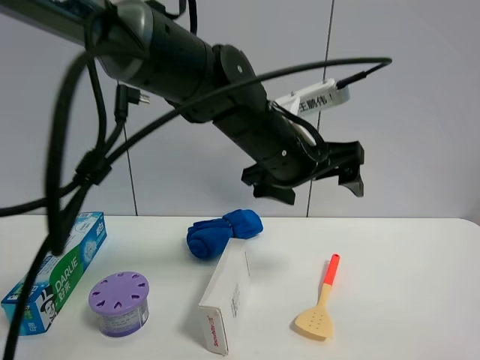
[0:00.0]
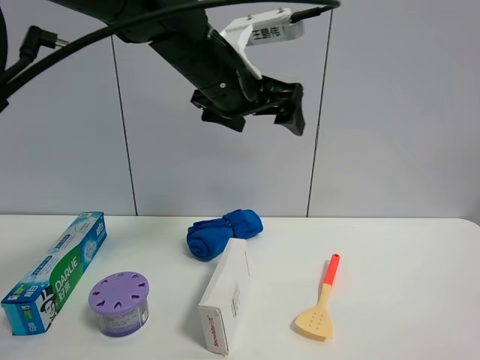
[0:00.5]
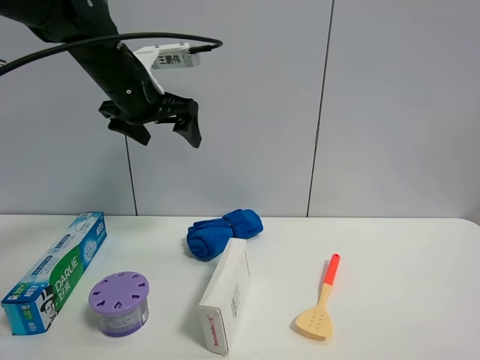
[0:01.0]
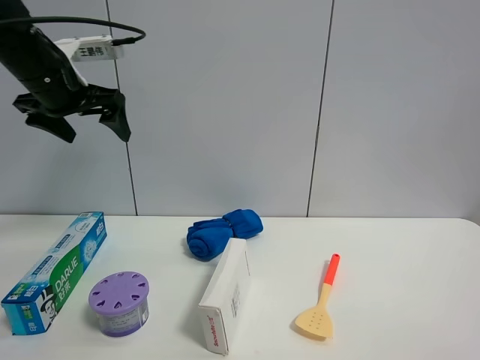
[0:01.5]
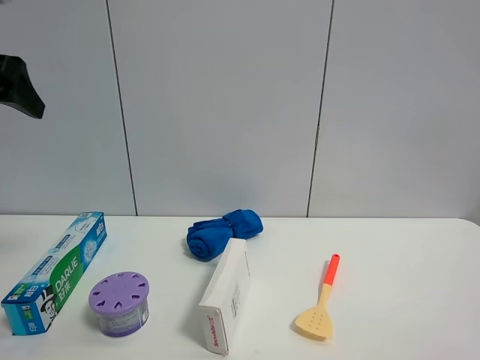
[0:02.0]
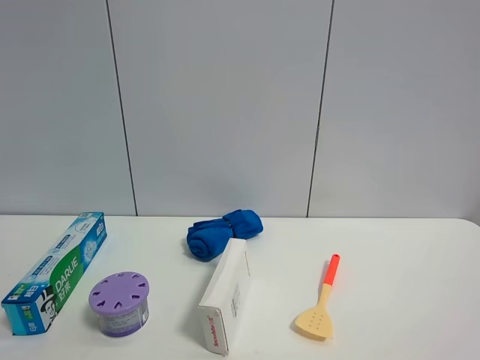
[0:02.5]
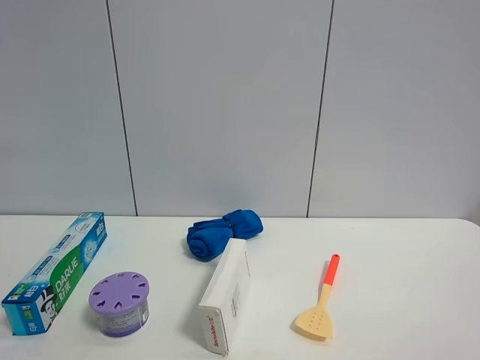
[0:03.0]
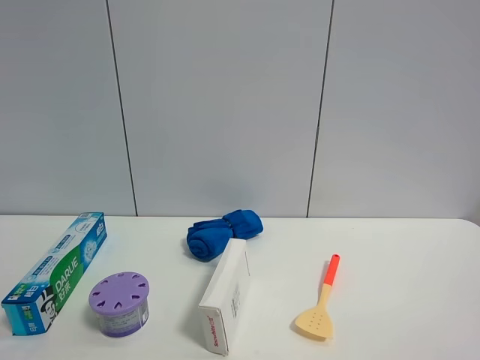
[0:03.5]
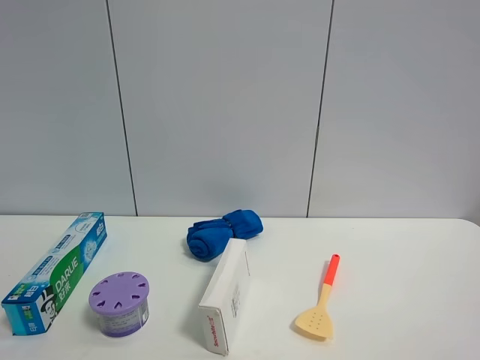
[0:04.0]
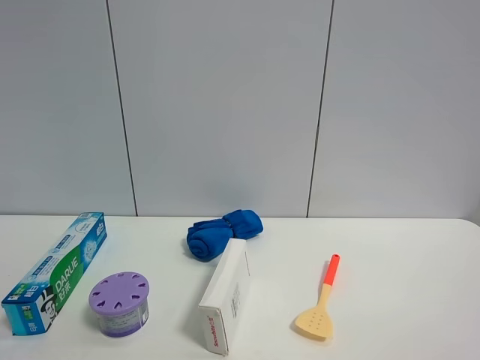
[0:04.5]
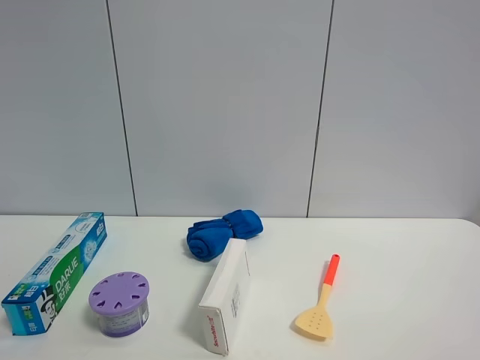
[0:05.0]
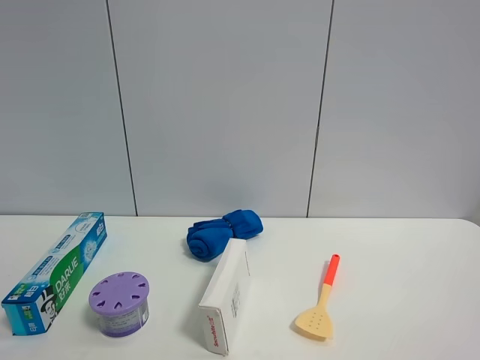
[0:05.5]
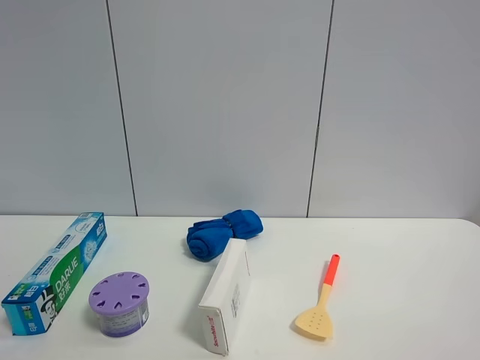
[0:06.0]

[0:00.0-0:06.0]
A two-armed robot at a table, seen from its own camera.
Task of the whole recording: the gripper move the object.
0:00.0 to 0:02.0: The left gripper is displaced to the left by roughly 35 cm.
0:02.0 to 0:04.0: The left gripper heads backward, covering about 30 cm.

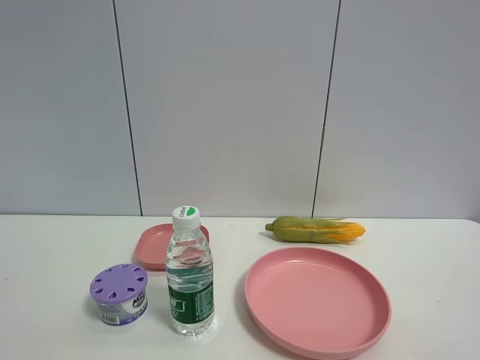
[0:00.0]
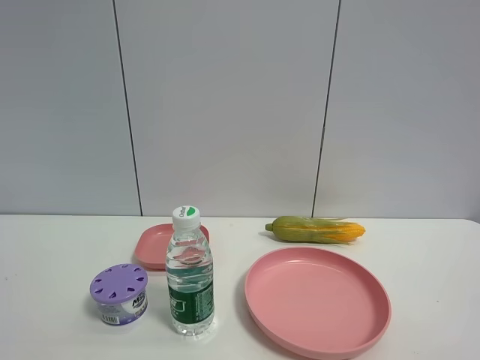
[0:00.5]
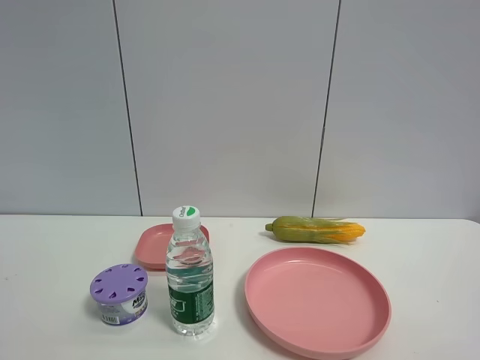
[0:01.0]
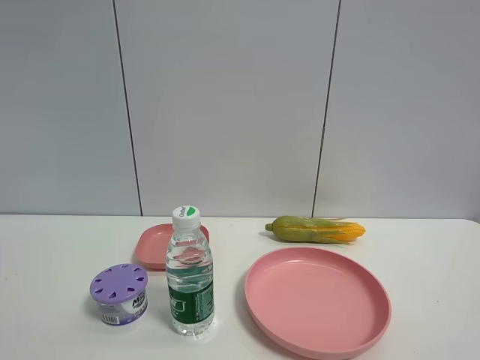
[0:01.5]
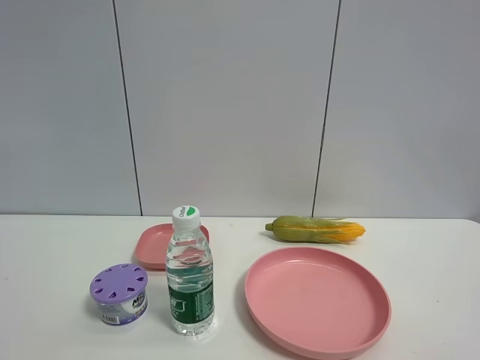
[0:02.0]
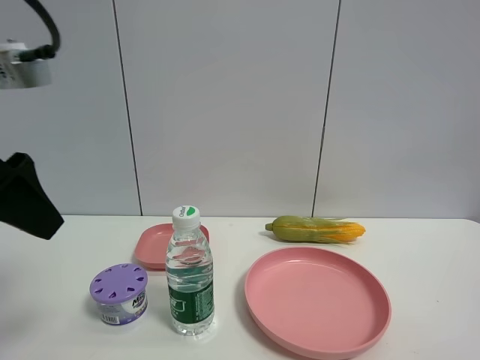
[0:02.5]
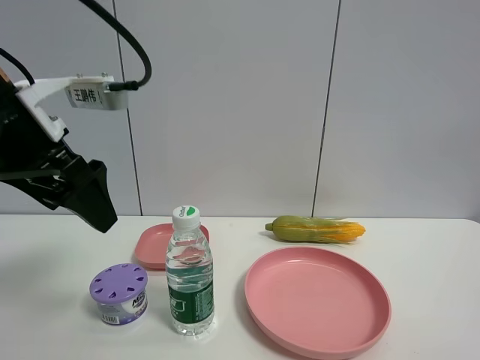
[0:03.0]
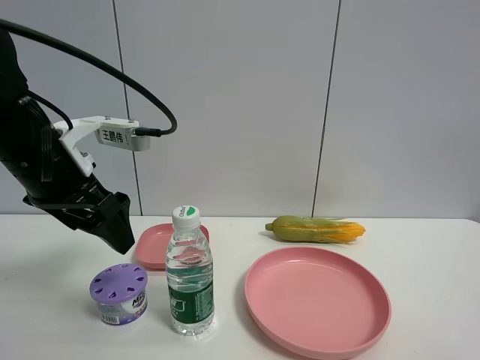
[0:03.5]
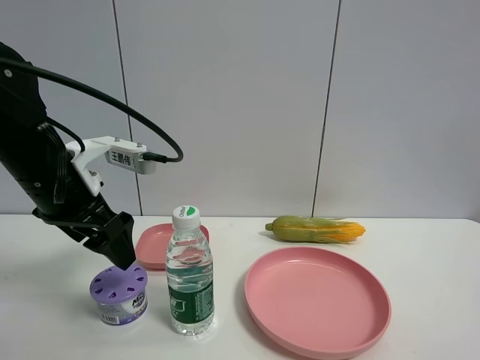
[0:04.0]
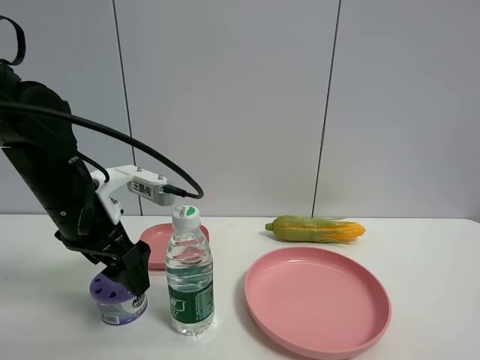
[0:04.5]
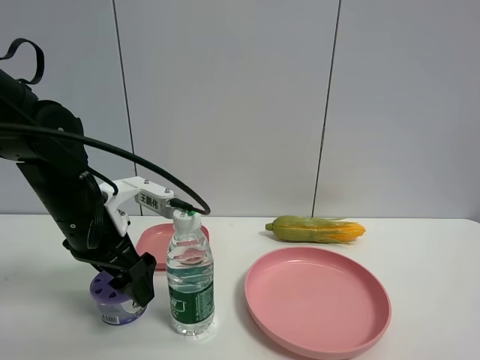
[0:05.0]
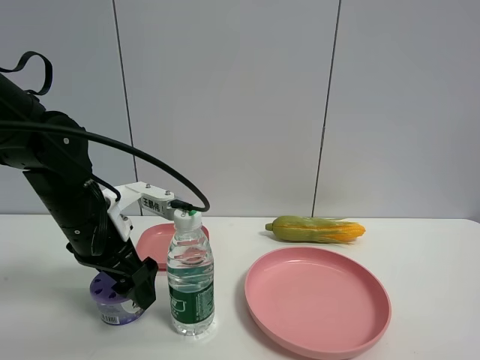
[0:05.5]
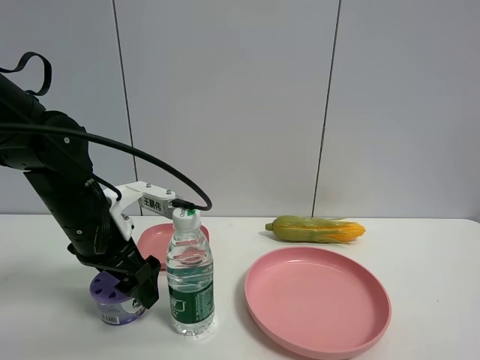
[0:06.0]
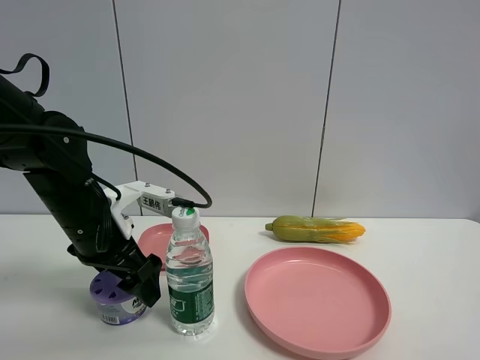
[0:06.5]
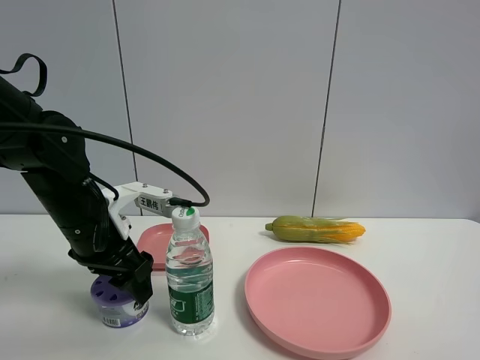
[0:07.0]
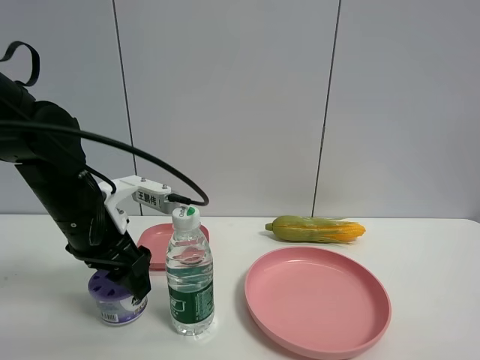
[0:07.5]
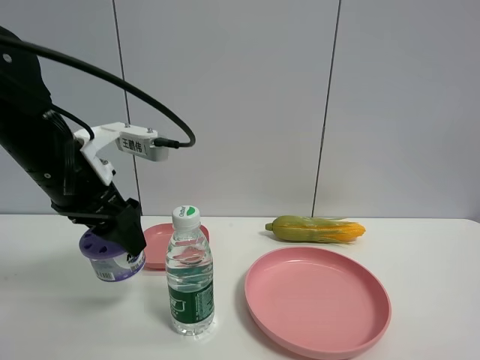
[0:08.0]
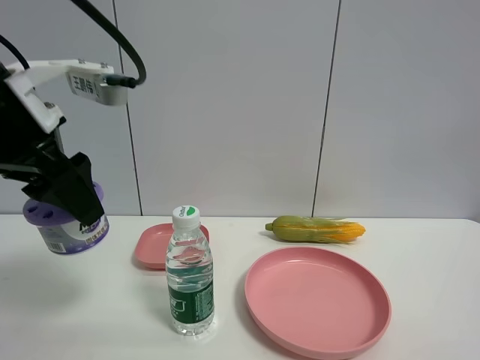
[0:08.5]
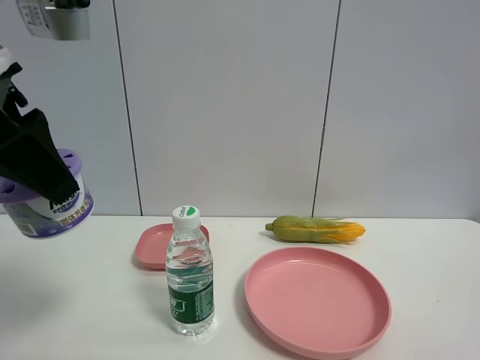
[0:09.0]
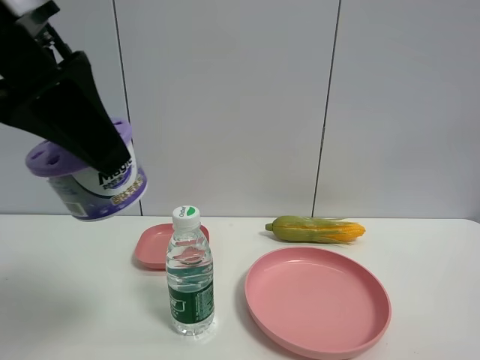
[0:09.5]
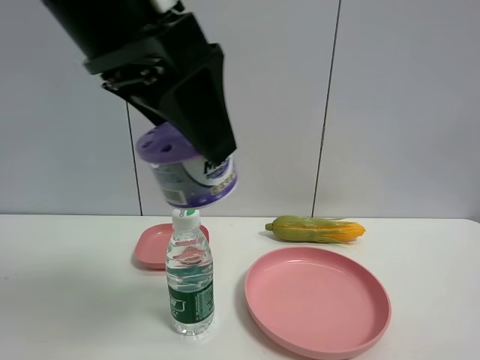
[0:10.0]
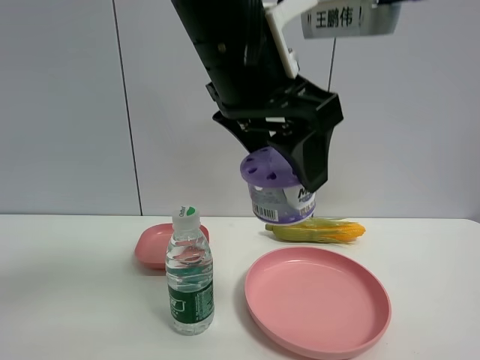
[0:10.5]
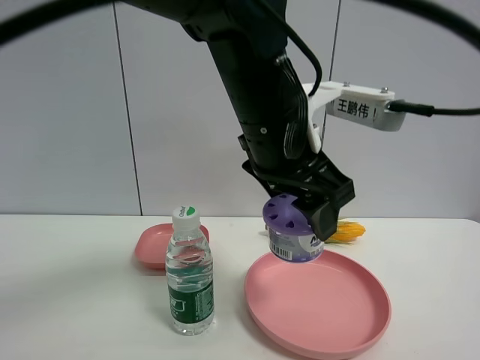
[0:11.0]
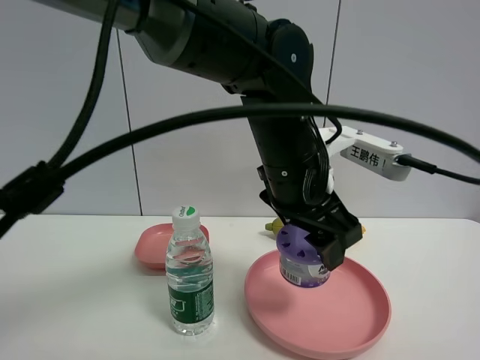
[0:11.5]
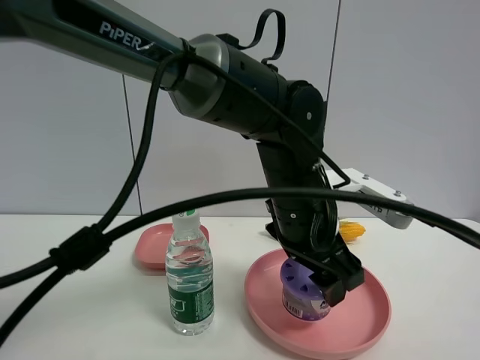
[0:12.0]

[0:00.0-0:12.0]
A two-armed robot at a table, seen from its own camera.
Task of the whole recording: the gripper move the object.
Step, 0:00.0 to 0:07.0: Grasp the Incense box with the left gripper.
0:02.0 to 0:04.0: The left gripper moves forward, downward and to the right, approximately 25 cm.
0:04.0 to 0:06.0: The left gripper heads downward, covering approximately 5 cm.
0:06.0 to 0:08.0: The left gripper heads upward, covering roughly 10 cm, and closes its fingers.
0:08.0 to 0:10.0: The left gripper moves upward, to the right and backward, roughly 20 cm.
0:10.0 to 0:12.0: The left gripper goes roughly 25 cm downward, to the right and forward.

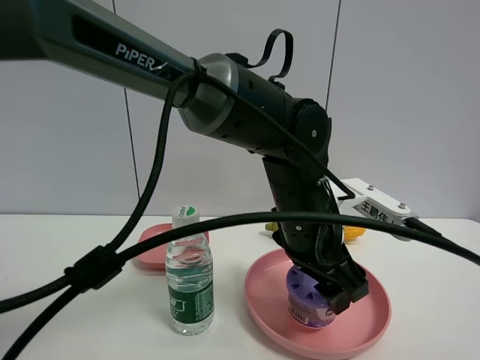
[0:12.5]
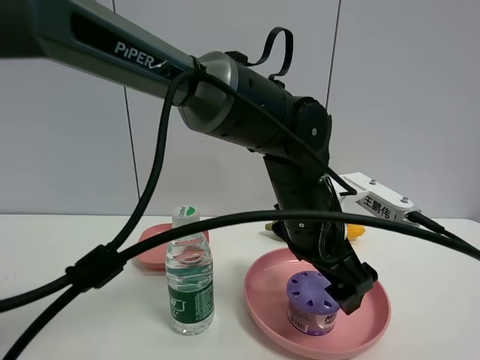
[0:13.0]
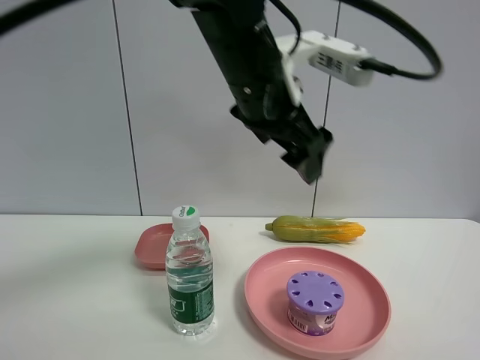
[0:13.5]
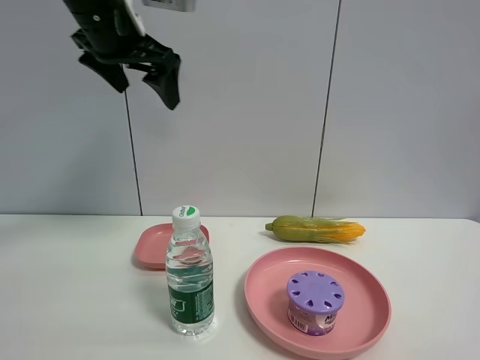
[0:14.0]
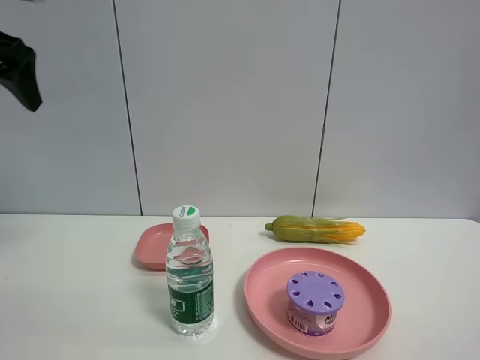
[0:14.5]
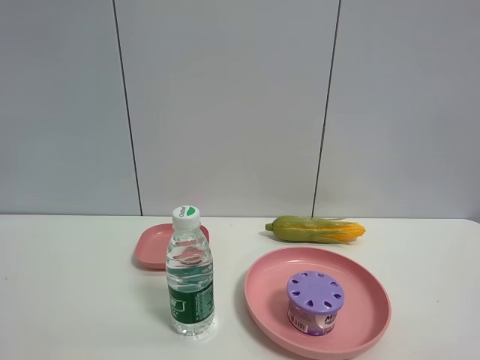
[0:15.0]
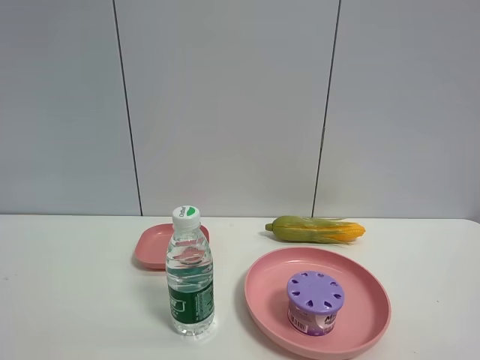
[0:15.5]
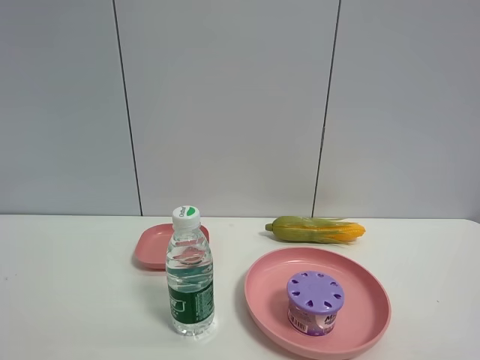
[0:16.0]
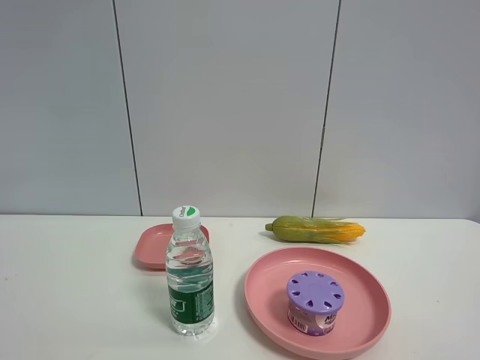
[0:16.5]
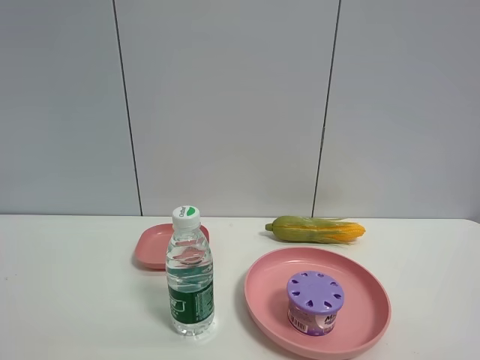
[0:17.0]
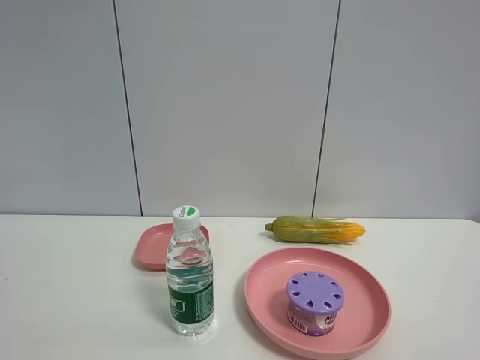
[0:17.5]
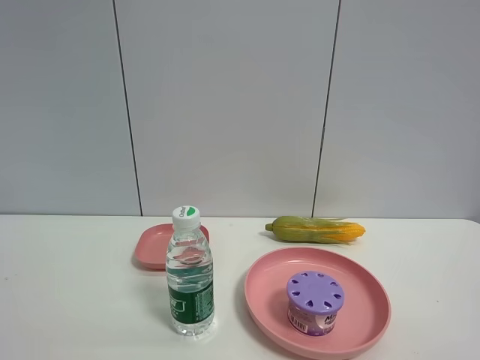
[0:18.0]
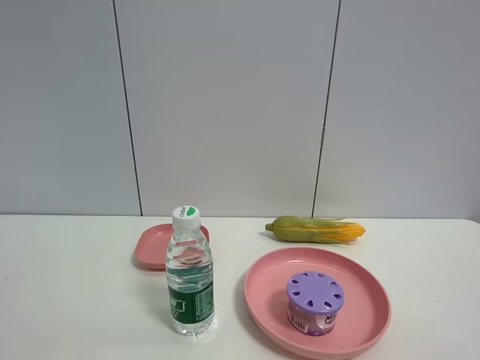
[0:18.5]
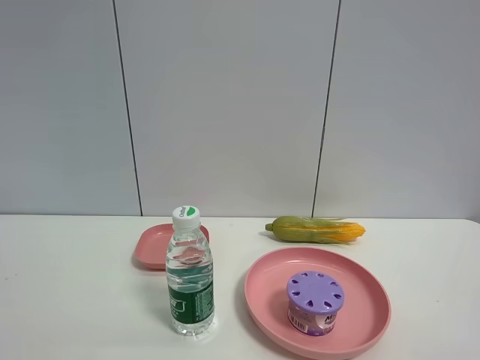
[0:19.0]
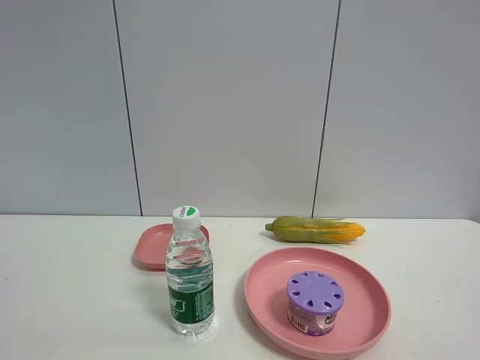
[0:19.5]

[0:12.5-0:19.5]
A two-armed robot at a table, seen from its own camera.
Task of the whole recording: the gripper move the object.
0:12.5 to 0:14.5: The left gripper moves to the left and upward, some 40 cm, and opens up.
0:14.5 to 0:16.0: The left gripper shifts approximately 30 cm backward.

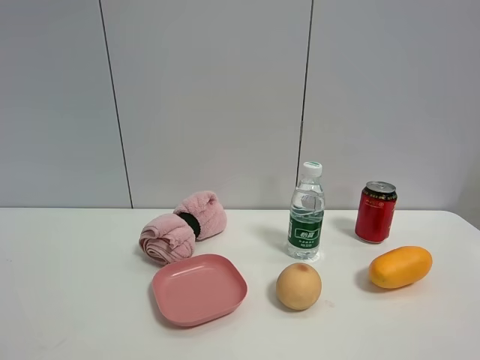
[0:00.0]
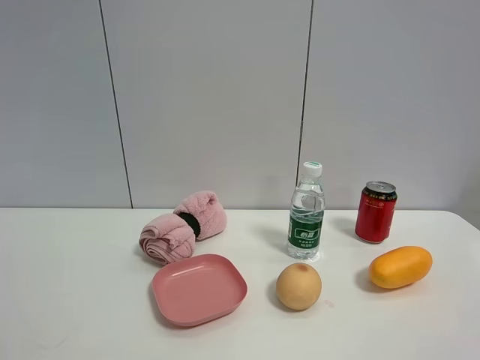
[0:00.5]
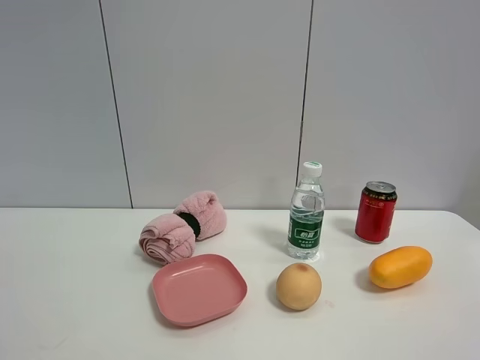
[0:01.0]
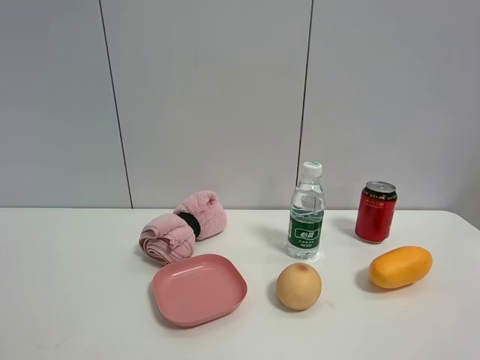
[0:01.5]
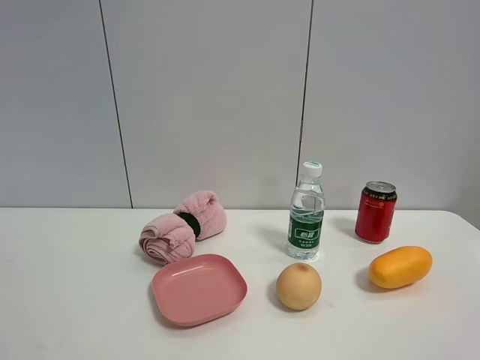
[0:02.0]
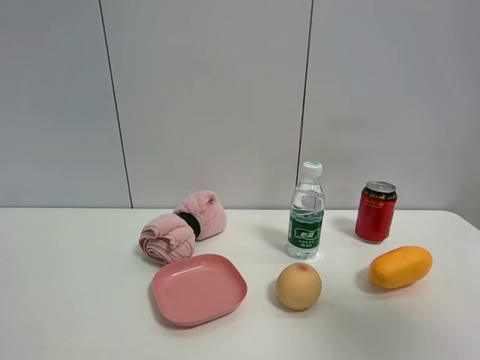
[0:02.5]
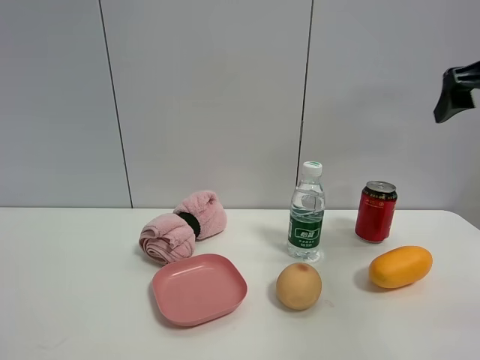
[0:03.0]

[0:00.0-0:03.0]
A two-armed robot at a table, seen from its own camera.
Task of the whole recording: the gripper move the object.
0:00.0 to 0:01.5: Neither gripper changes place.
0:01.5 to 0:03.0: The right gripper heads forward, covering approximately 35 cm.
